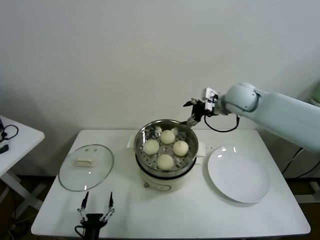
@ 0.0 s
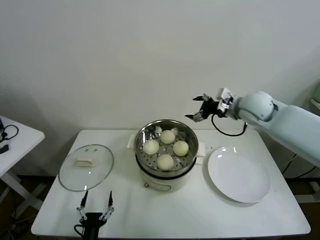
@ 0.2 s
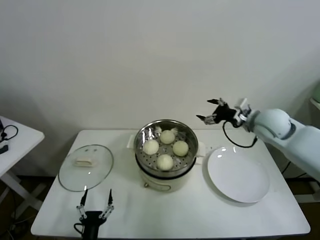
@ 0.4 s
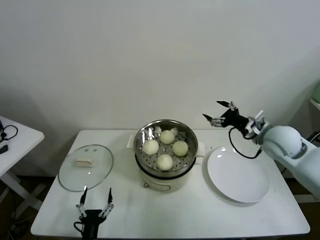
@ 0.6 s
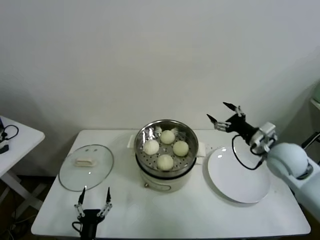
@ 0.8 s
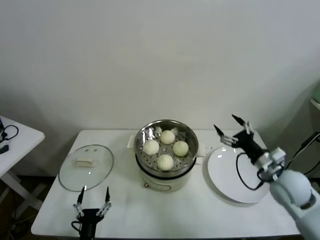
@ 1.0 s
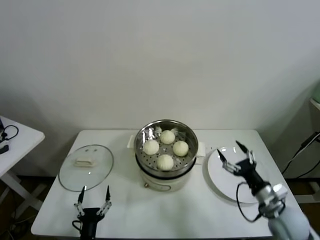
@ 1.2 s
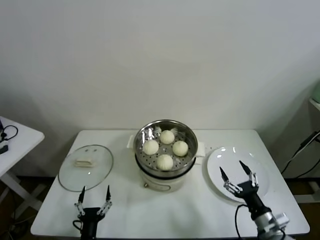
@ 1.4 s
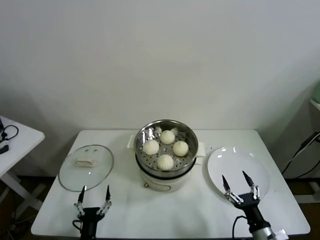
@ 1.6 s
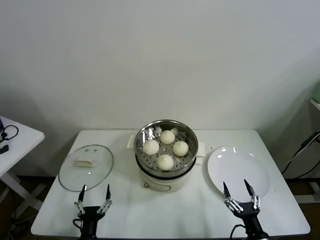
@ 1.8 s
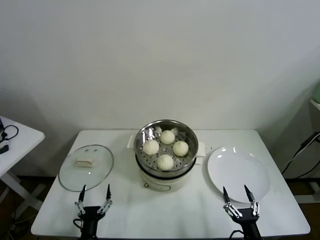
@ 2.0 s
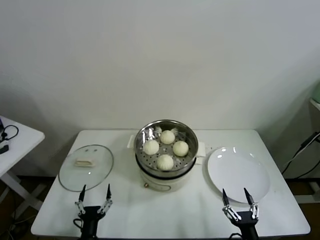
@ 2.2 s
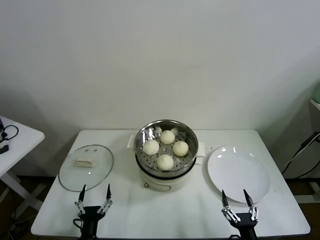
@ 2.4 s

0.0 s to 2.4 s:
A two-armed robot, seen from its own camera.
Task of the whole recording: take steamed baozi put them in steamer.
0.0 to 1.2 s: The right gripper goes some 35 cm backward, downward and to the right.
1.2 to 2.4 s: The right gripper shifts about 25 cm backward, downward and to the left.
